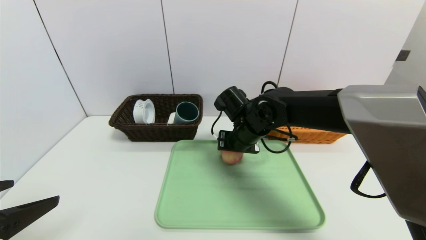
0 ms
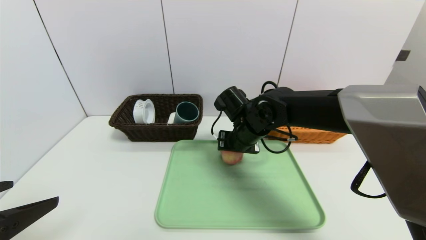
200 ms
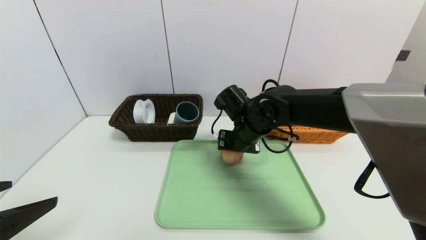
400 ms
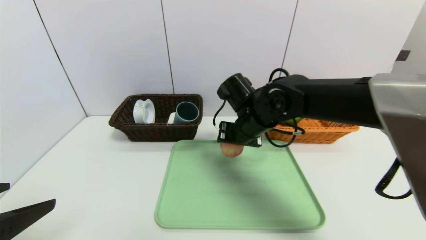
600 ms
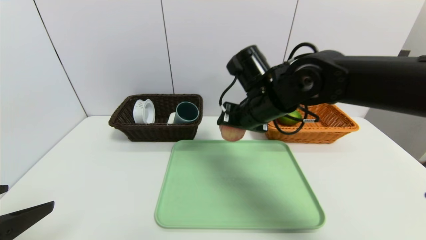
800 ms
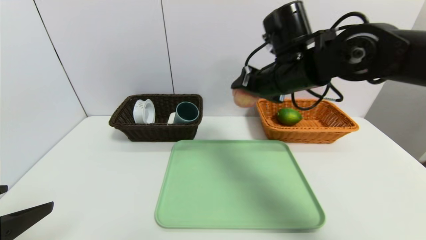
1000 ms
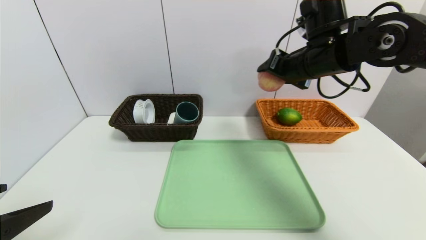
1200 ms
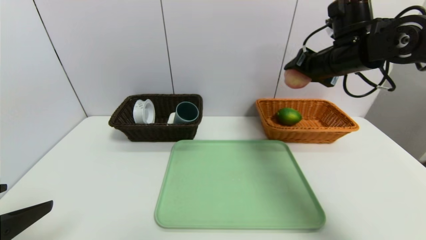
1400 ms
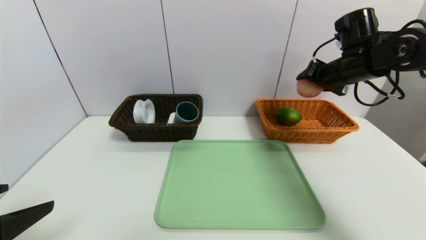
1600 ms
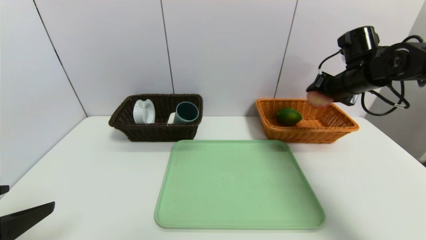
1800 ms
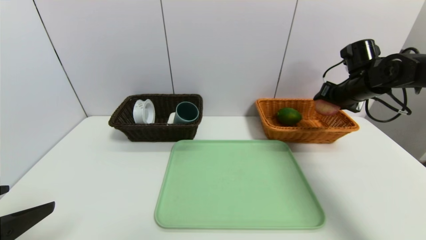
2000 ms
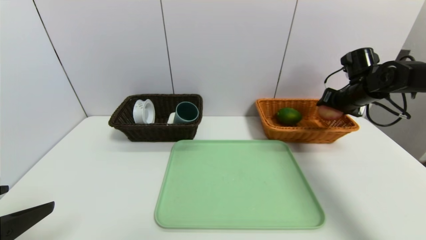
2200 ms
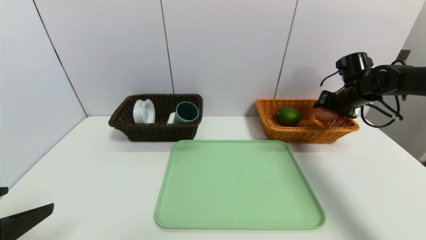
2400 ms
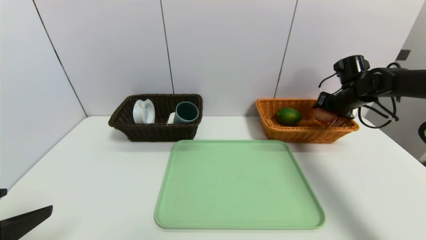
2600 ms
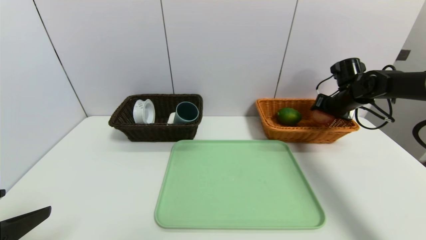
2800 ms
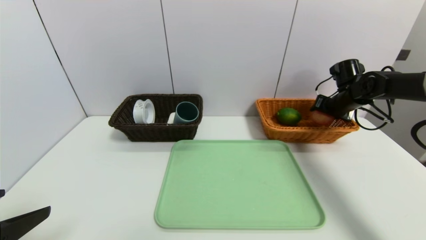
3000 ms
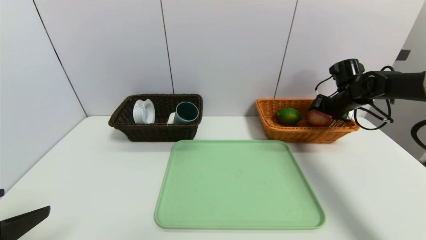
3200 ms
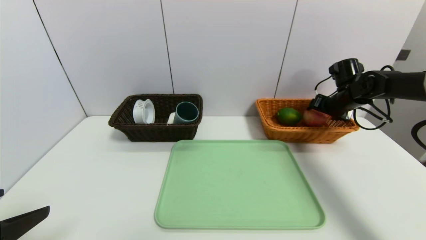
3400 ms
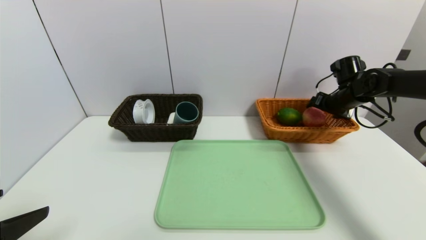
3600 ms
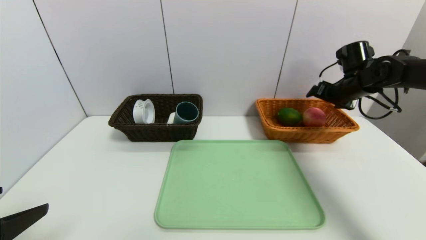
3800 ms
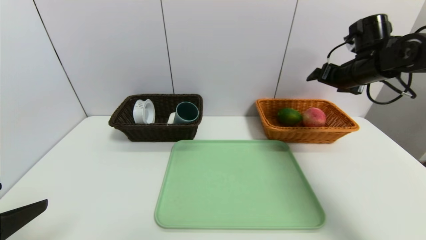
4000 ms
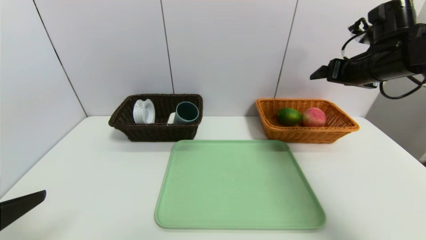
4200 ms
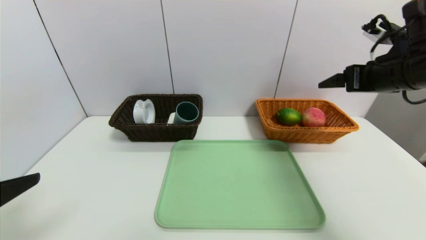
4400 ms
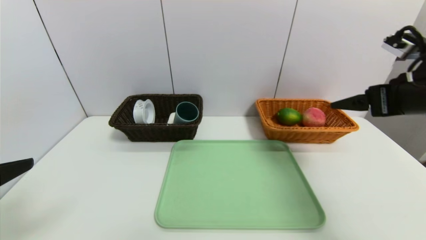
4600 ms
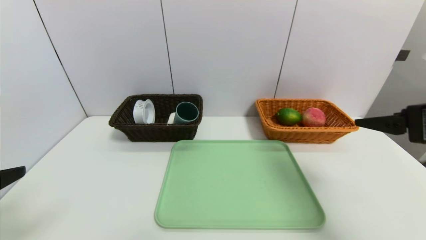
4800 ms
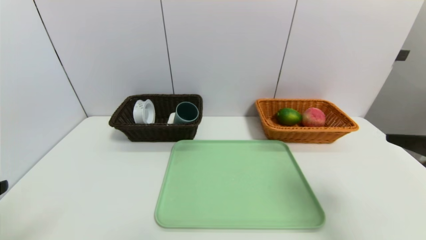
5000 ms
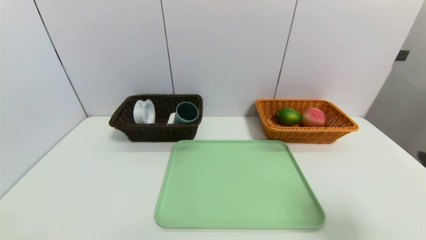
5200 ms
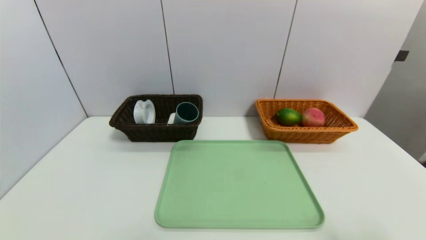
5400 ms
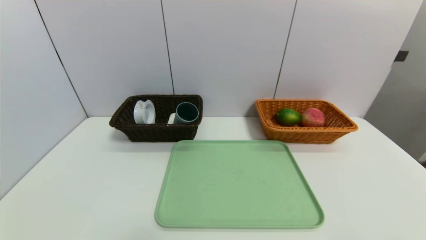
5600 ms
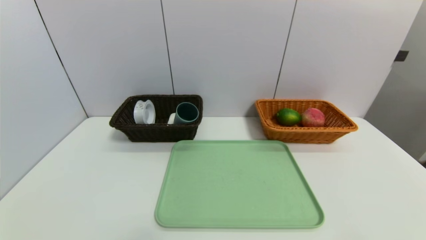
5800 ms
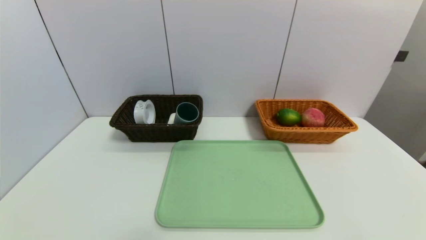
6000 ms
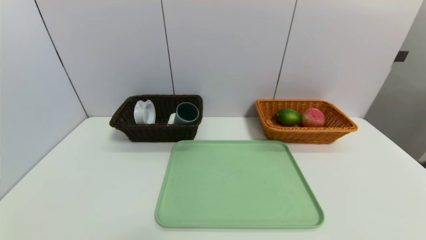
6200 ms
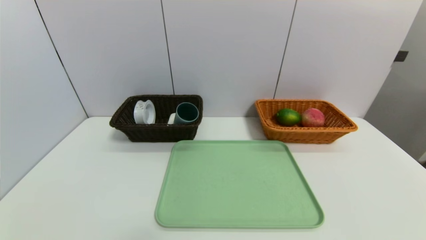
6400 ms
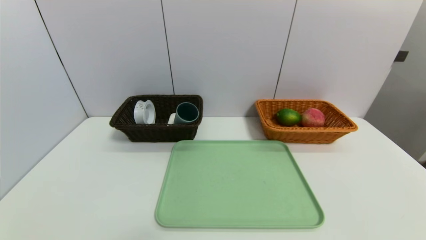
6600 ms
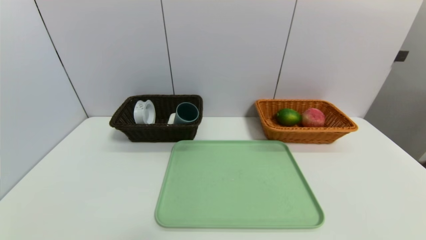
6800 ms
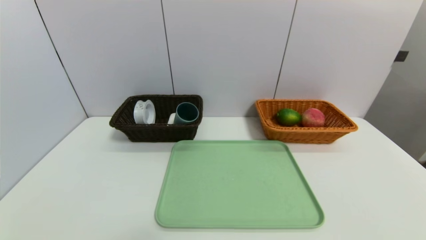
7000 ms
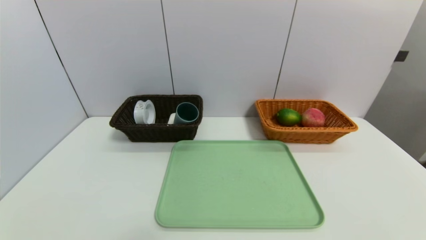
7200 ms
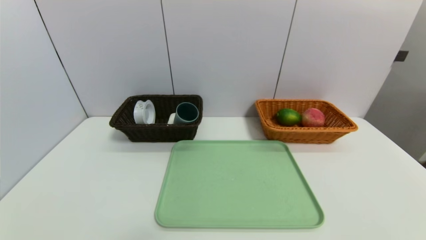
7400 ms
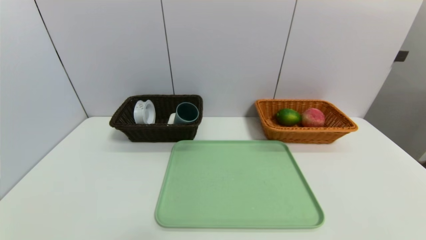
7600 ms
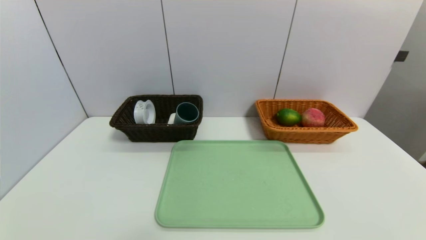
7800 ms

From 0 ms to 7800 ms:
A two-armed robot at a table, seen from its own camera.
Task of the whole recording: place the food in the right basket with the right gripper, and place the non food items in the left basket with the left gripper.
Step, from 0 ms to 3800 ms: Grasp the peach and put it in the right basket.
From 0 ms to 1600 ms: The right gripper moves to the right and upward, roughly 25 cm.
From 1600 ms to 3200 ms: The right gripper travels downward, to the right and forward by some 15 cm.
From 3200 ms to 4600 ms: The right gripper travels backward and upward by roughly 25 cm, and opens its fingers.
From 4600 ms to 6200 ms: The right gripper heads backward and downward, covering about 30 cm. The left gripper travels backward and downward by approximately 20 cm.

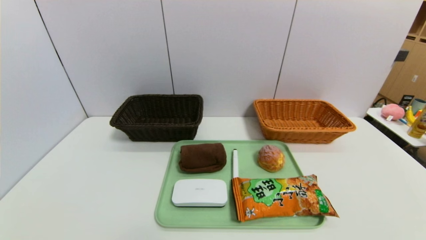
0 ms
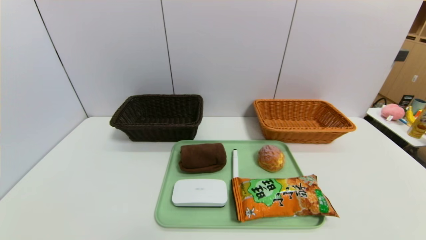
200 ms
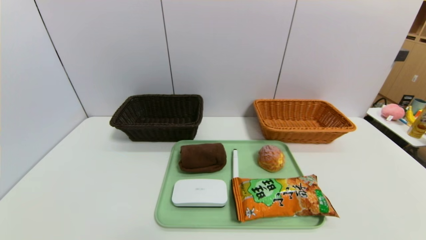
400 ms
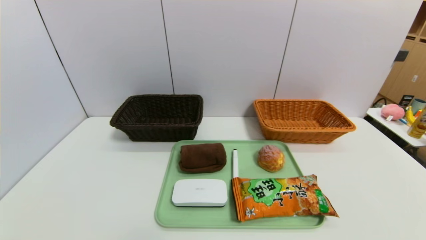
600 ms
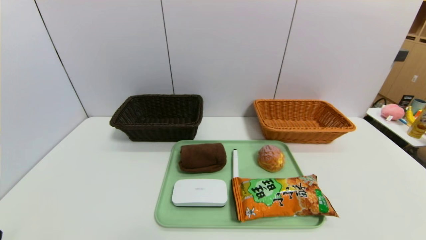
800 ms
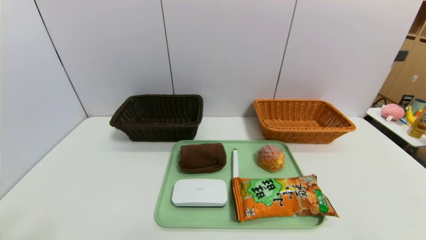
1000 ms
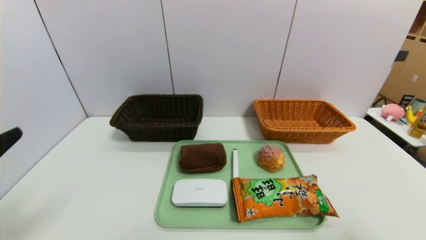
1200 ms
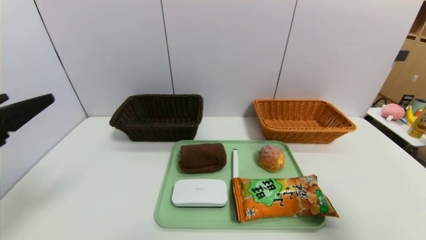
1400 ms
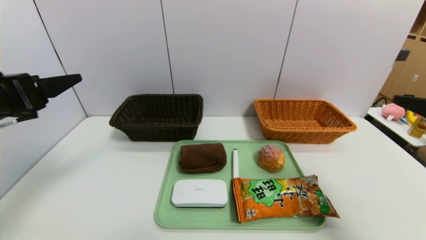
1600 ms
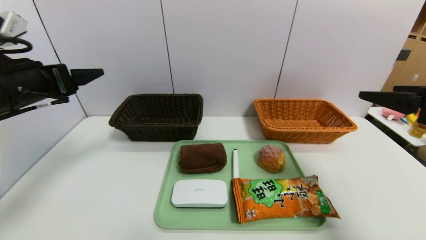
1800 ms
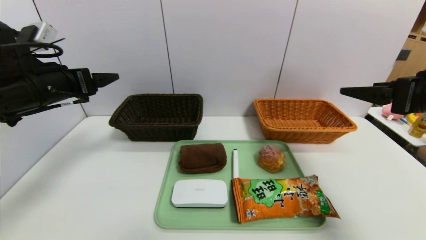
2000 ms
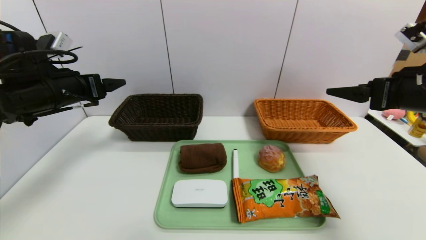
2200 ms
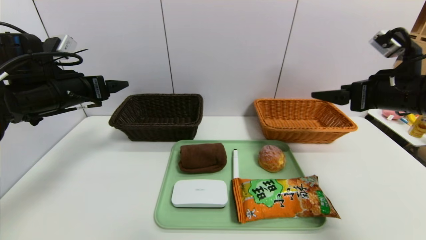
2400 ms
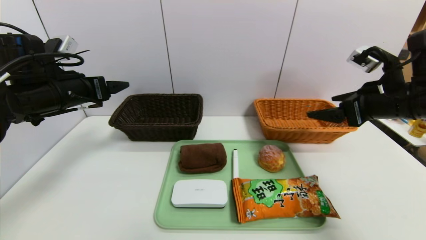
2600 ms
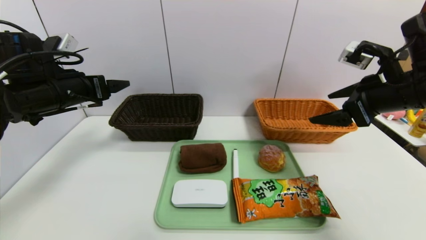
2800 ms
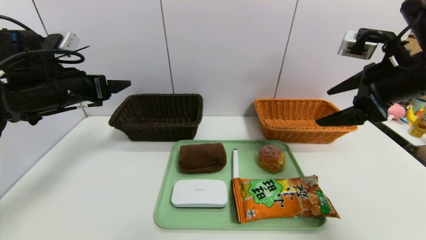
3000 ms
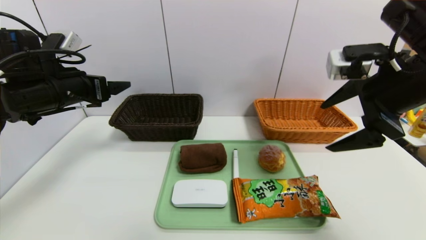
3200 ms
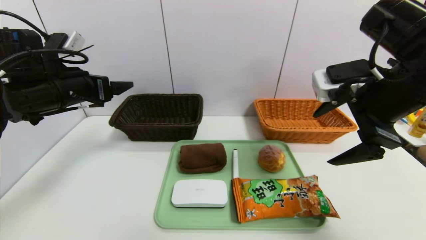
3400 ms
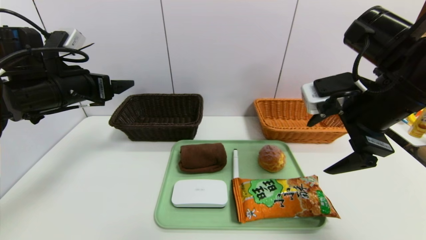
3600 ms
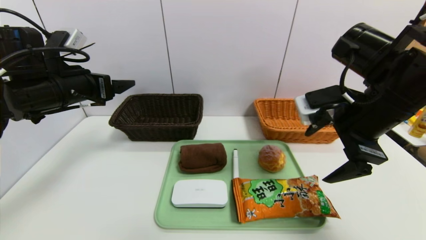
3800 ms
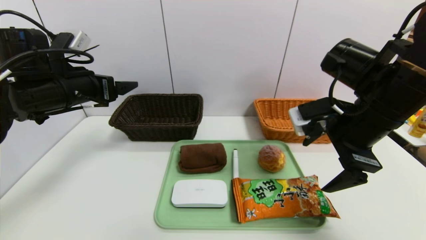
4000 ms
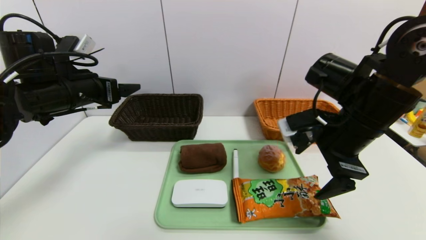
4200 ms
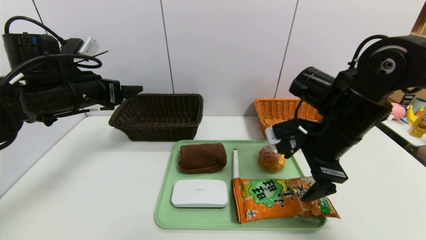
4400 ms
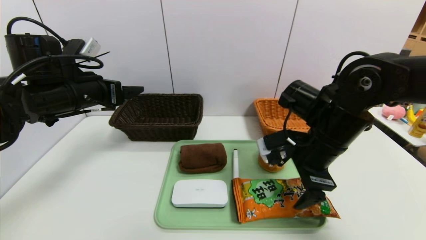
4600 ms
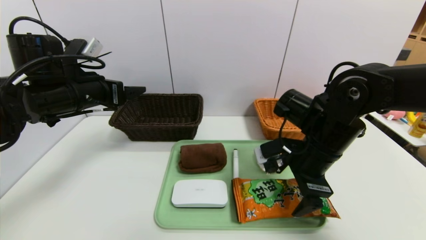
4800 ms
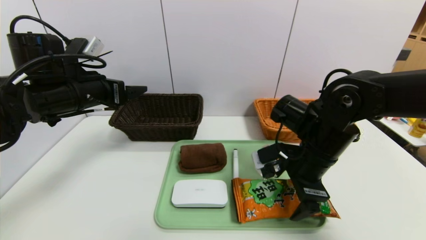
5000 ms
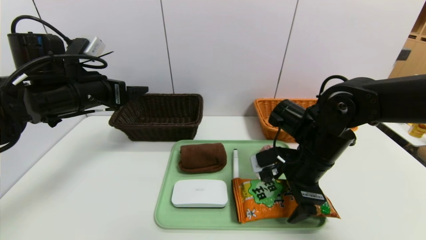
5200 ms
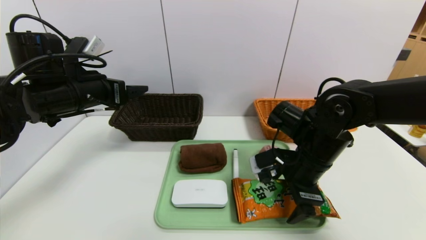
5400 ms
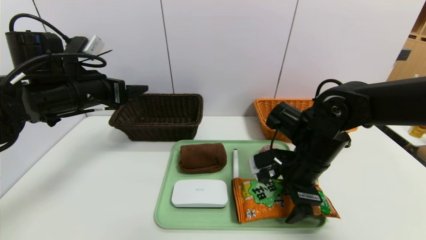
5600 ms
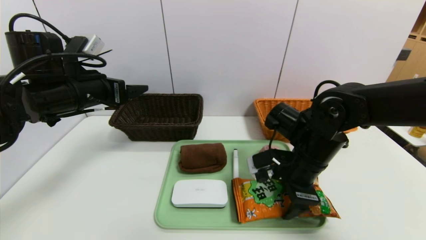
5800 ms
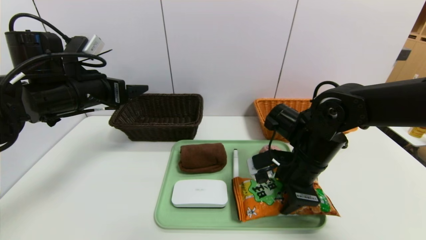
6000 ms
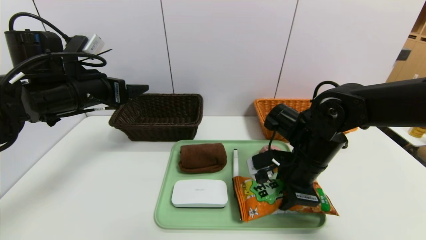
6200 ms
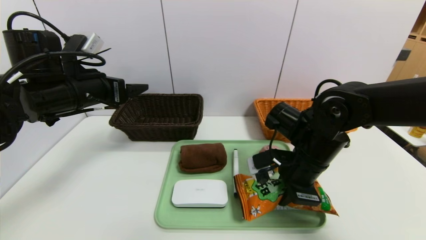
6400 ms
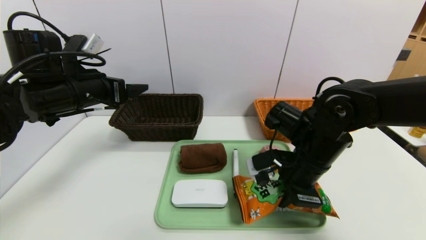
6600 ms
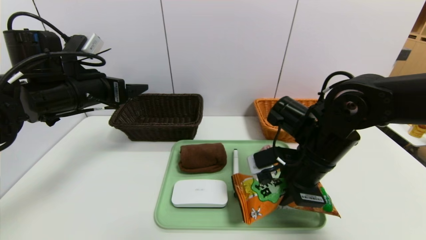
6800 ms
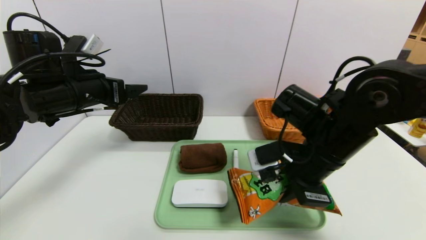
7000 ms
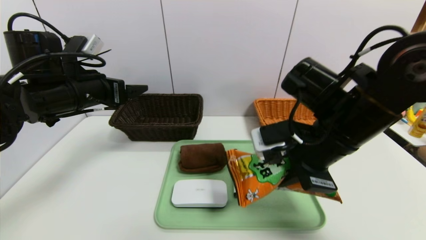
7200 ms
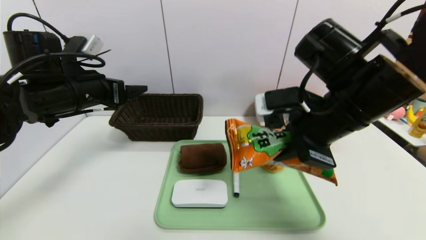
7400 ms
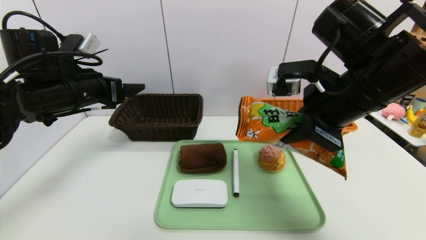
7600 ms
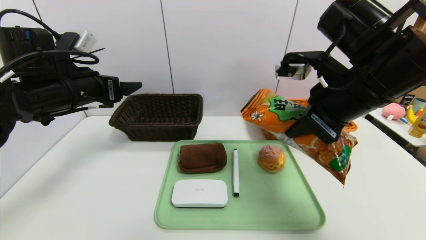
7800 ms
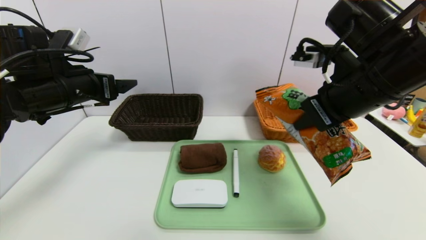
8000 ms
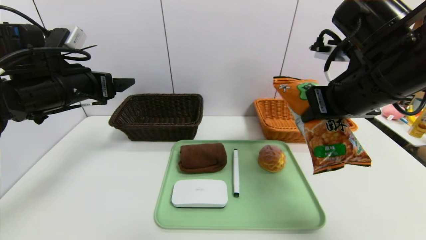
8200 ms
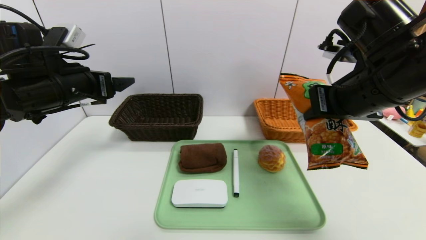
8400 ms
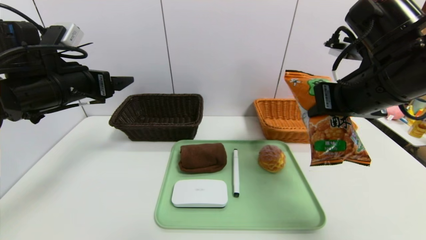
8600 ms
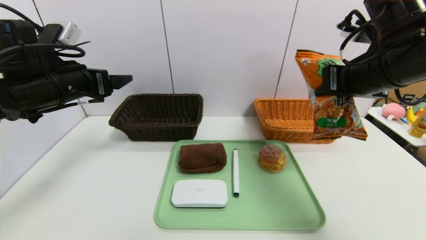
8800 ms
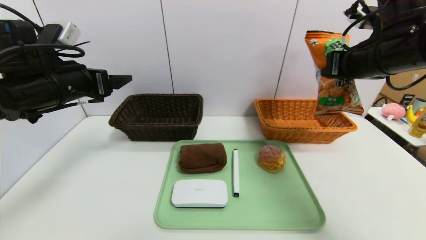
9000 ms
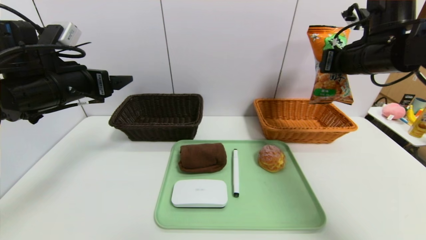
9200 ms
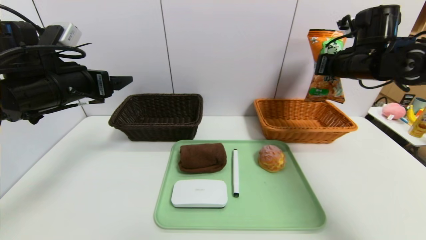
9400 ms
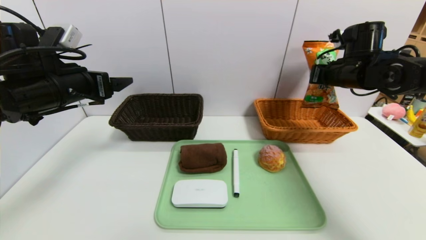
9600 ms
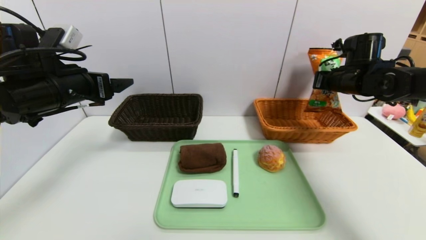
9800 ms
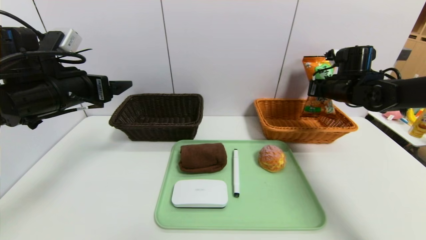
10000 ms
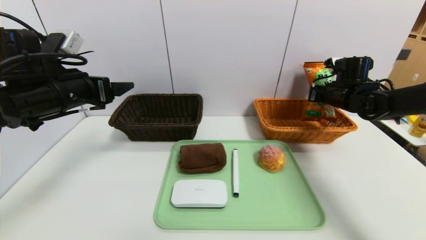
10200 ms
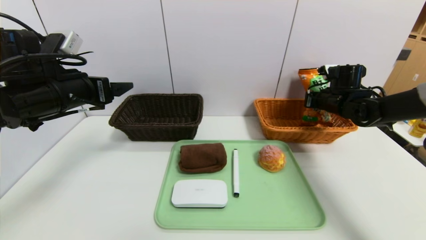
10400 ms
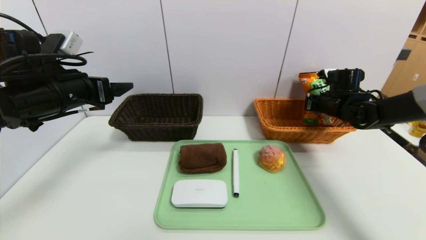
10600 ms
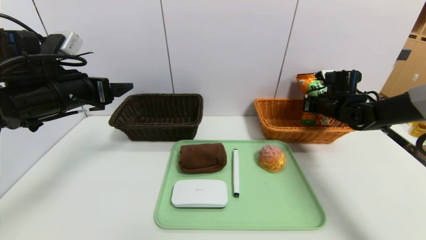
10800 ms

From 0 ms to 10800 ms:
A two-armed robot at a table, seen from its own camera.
Task of the whole recording: place the food in the right basket with the right gripper, and place the non food items in the left basket with the left gripper.
From 0 ms to 1600 ms: The two grippers go approximately 30 cm upward and forward.
From 1600 ms to 3000 ms: Both grippers travel together forward, roughly 10 cm.
From 3000 ms to 4600 ms: The right gripper goes roughly 15 cm downward and to the left.
From 4600 ms to 6200 ms: The right gripper closes up.
From 6200 ms to 7800 ms: The right gripper moves upward, about 15 cm.
From 7800 ms to 9200 ms: The right gripper is displaced forward and to the right by approximately 15 cm.
From 9200 ms to 10800 ms: The right gripper shifts some 15 cm downward and forward.
